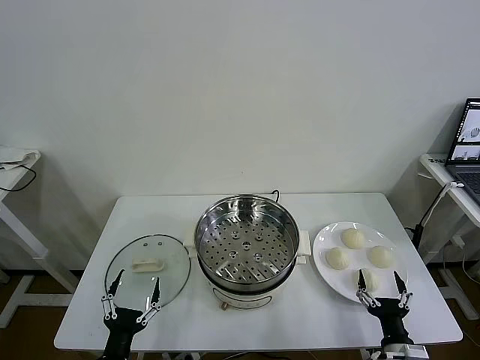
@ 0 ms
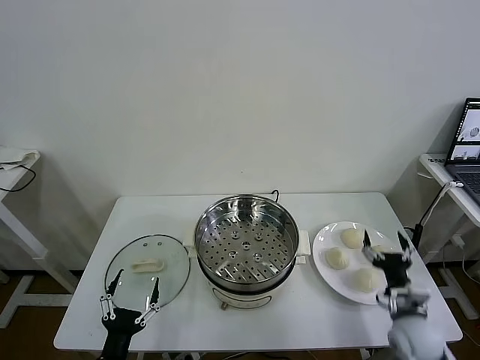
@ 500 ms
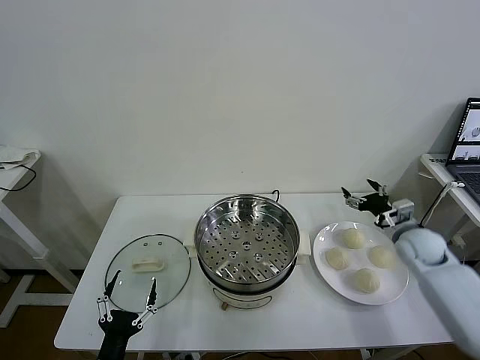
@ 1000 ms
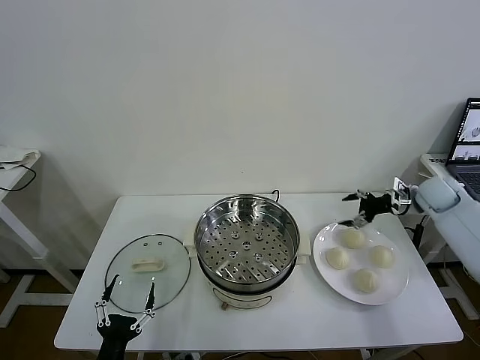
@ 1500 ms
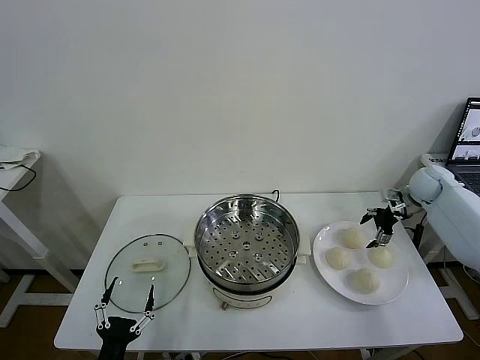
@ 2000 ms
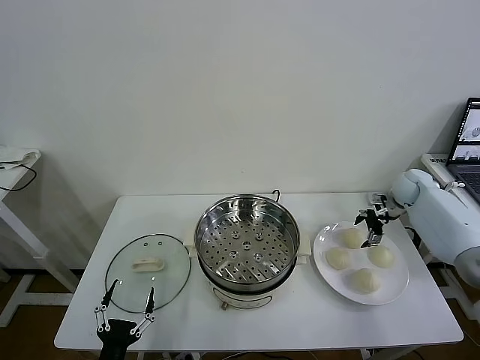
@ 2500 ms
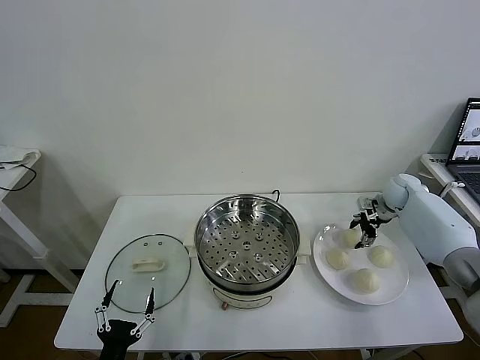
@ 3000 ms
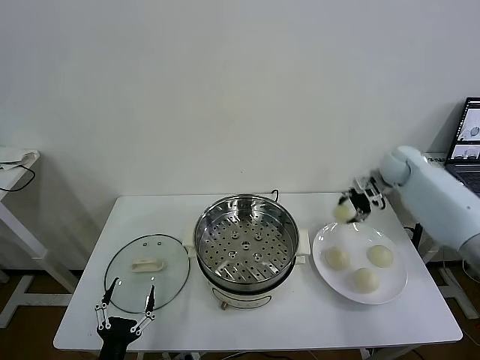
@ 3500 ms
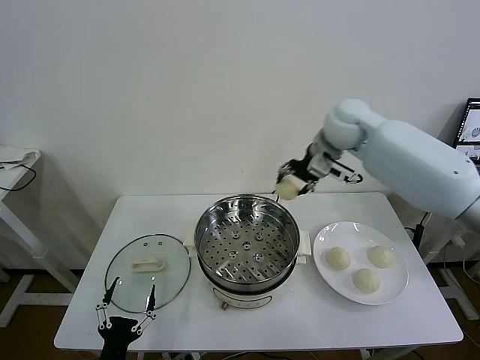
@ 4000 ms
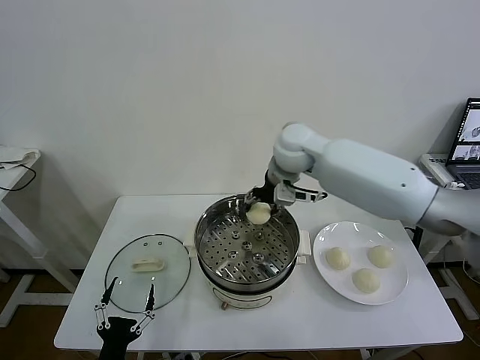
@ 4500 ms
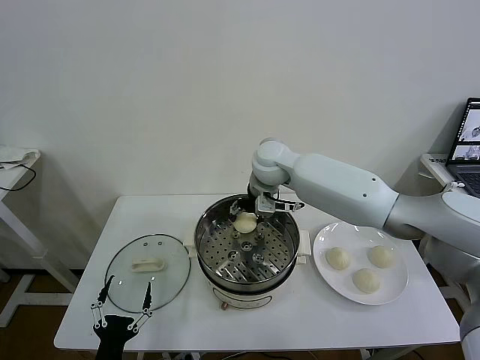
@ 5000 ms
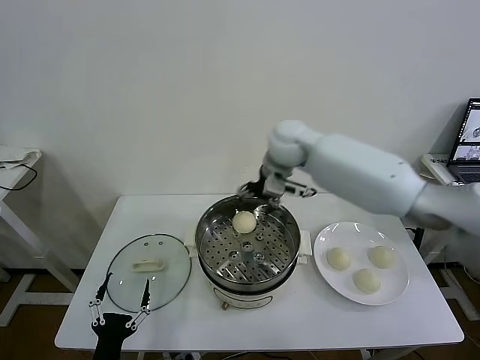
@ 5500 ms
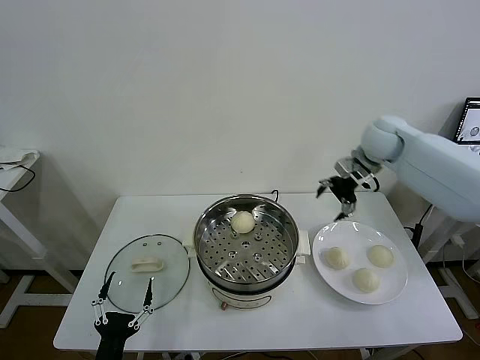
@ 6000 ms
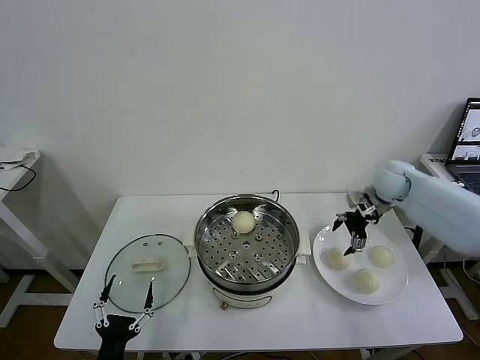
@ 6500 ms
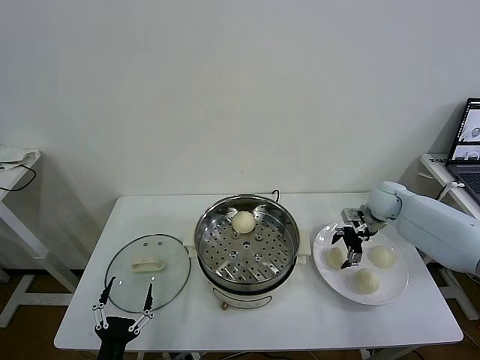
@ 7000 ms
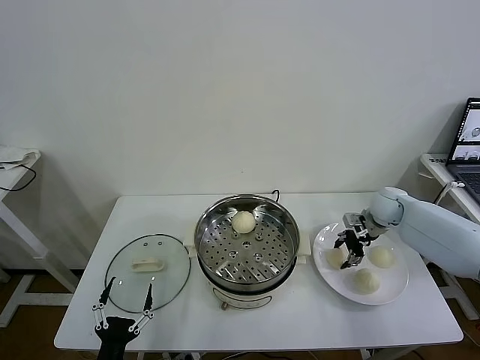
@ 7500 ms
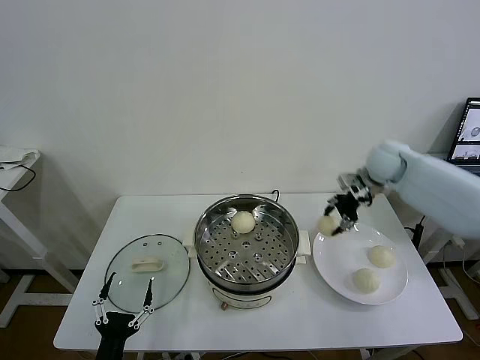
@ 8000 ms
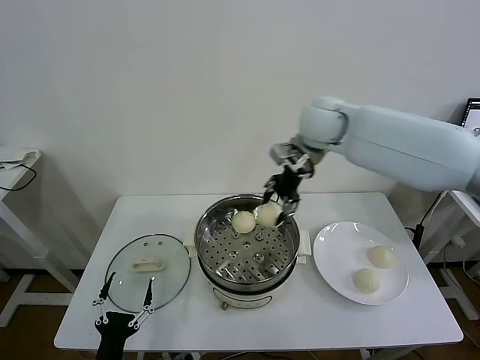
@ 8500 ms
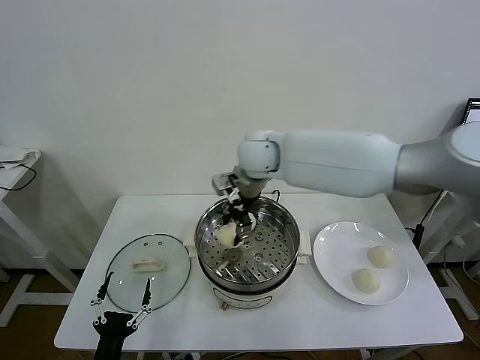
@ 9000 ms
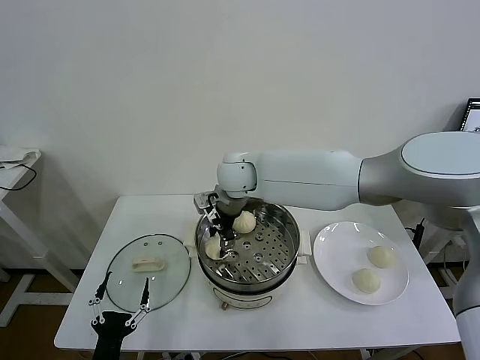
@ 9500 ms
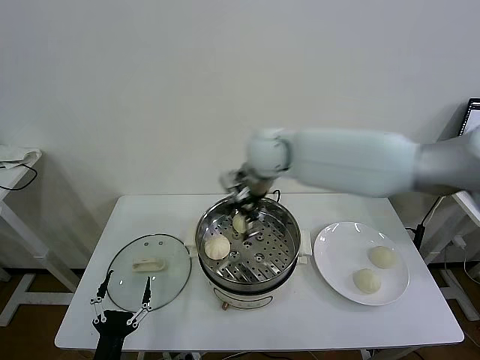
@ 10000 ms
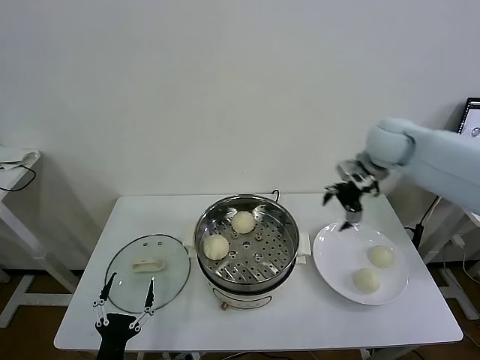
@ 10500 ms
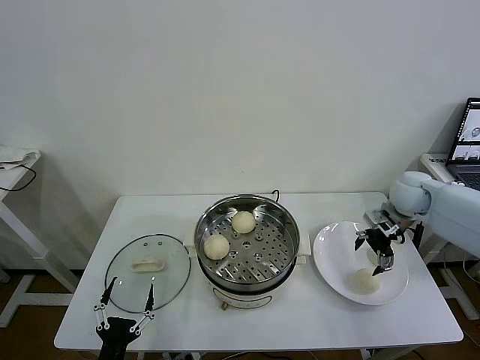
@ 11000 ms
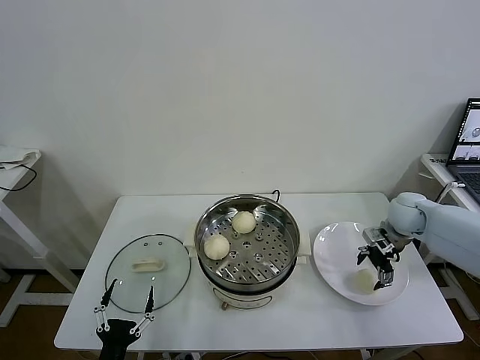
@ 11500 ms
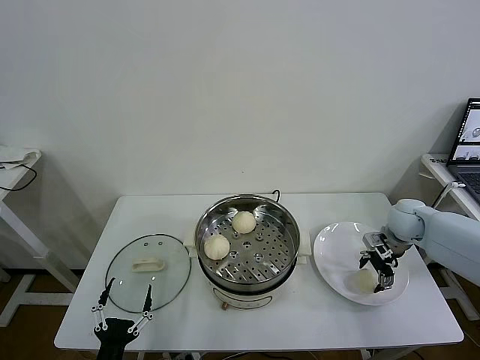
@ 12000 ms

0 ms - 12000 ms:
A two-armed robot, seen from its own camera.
Task of the whole recording: take steamed baozi put them in steamer then cover it.
Step, 0 ms - 3000 ms: Grasp the baozi in the plate with right gripper.
Step, 3500 ms - 5000 ms: Place the baozi on the steamer with right gripper.
Step, 5500 ms - 7000 ms: Grasp the baozi in the plate with right gripper.
Step, 8000 ms - 9500 ms: Place the baozi on the steamer with right gripper.
2000 ms - 4000 ms: The right gripper travels to the left and upward by some 35 cm, and closes up.
4000 ms - 6000 ms: The right gripper goes roughly 15 cm to the right, and opens.
6000 ms - 8000 ms: The right gripper travels downward and back again, approximately 15 cm each way, and closes up.
8000 ms - 10000 ms: The right gripper moves to the left, about 25 cm, and opens up.
10000 ms - 12000 ms: The right gripper moves to the right and downward, about 40 cm.

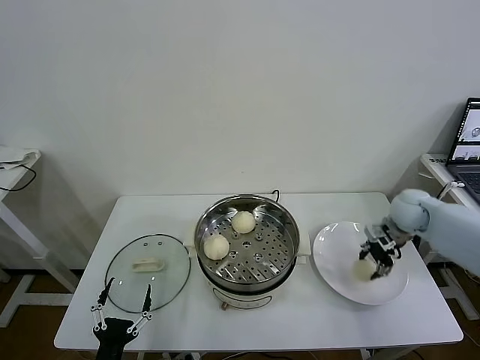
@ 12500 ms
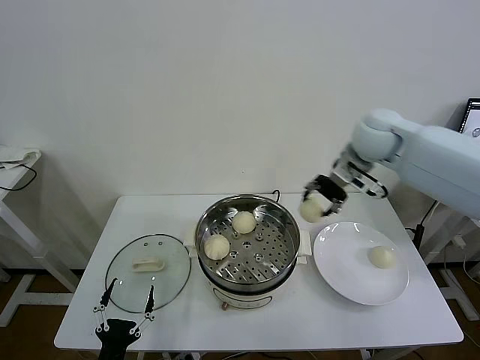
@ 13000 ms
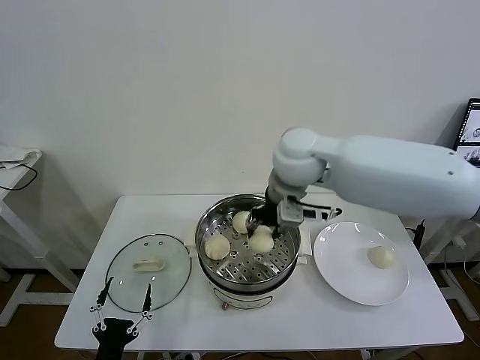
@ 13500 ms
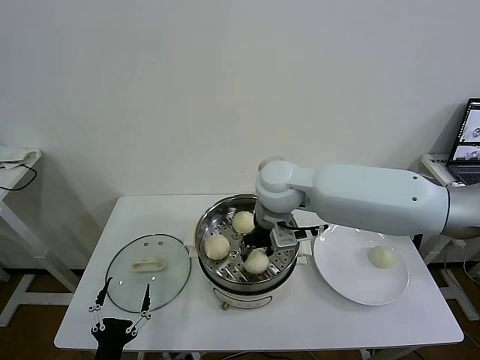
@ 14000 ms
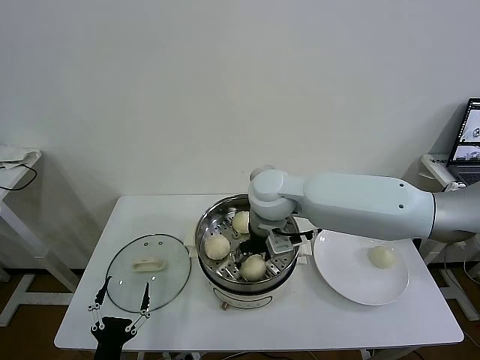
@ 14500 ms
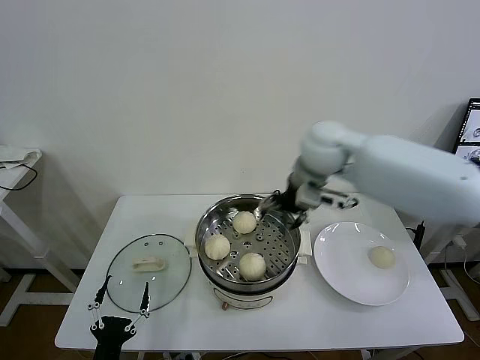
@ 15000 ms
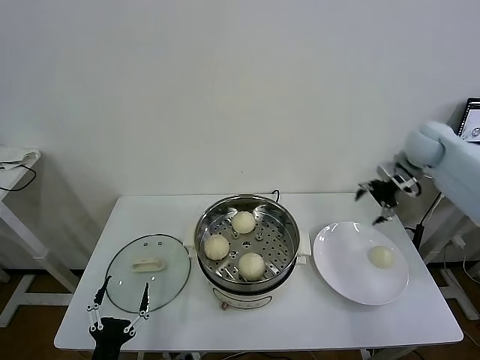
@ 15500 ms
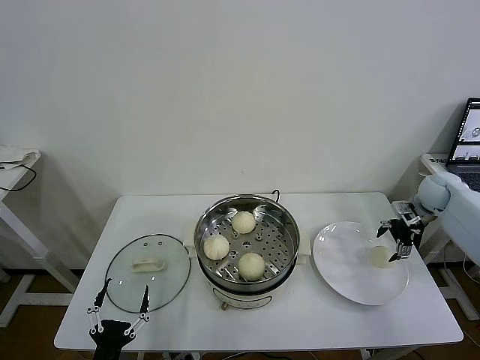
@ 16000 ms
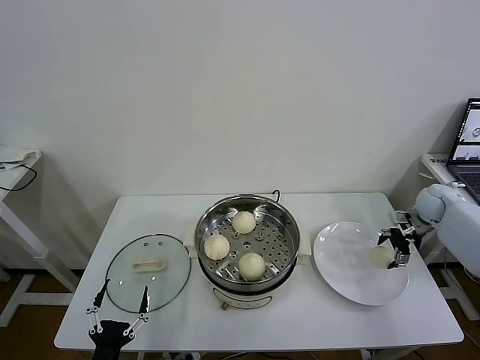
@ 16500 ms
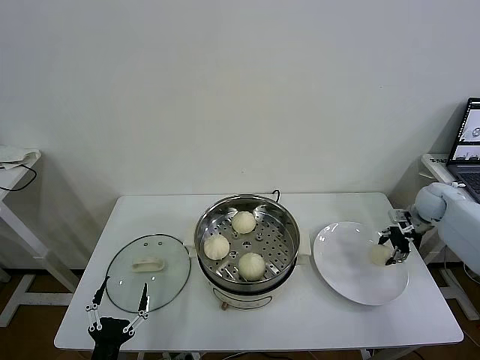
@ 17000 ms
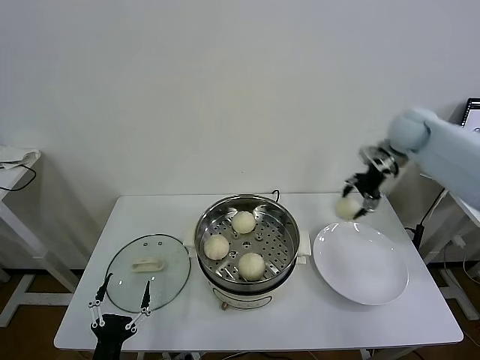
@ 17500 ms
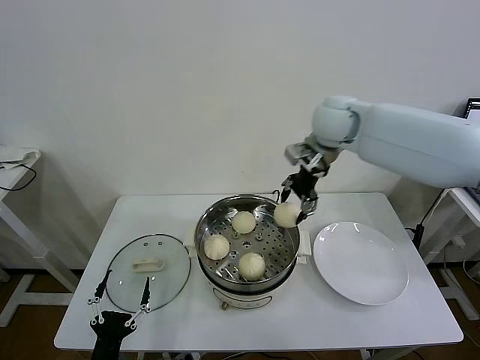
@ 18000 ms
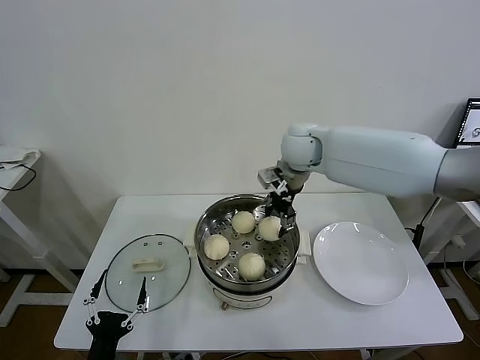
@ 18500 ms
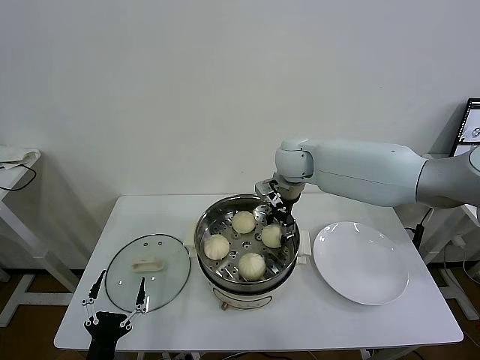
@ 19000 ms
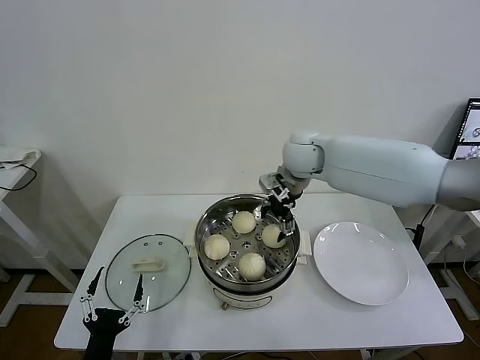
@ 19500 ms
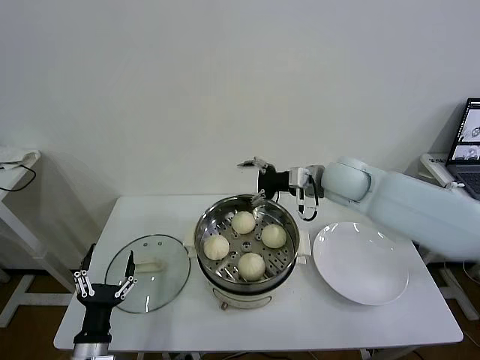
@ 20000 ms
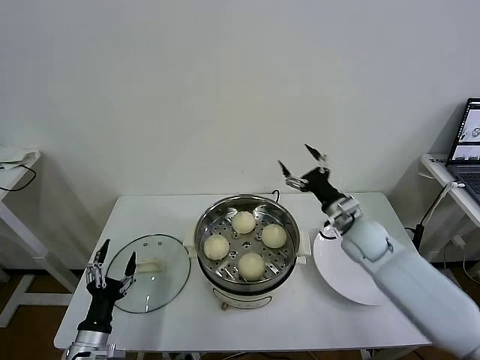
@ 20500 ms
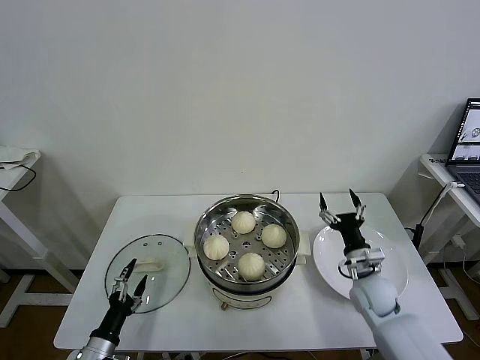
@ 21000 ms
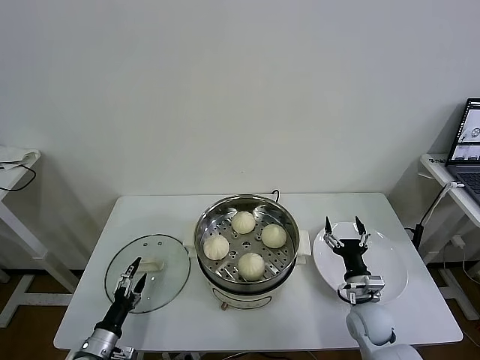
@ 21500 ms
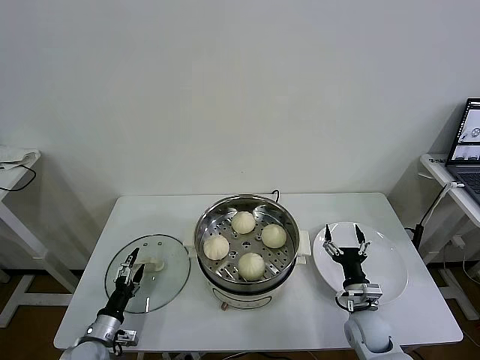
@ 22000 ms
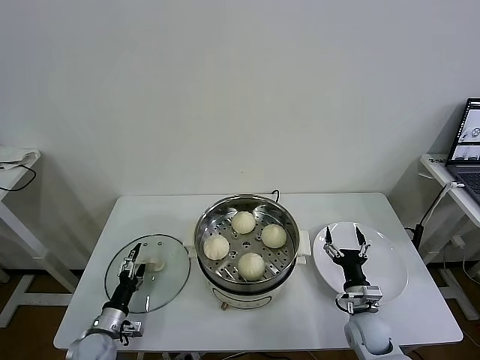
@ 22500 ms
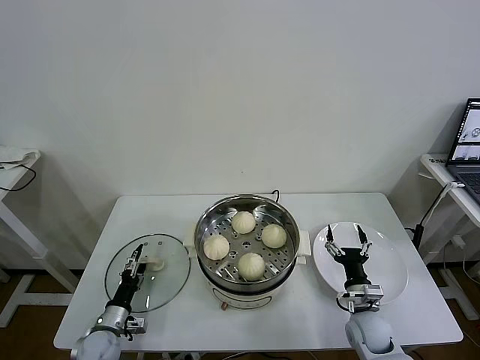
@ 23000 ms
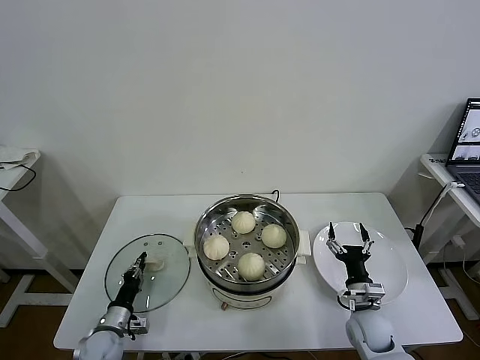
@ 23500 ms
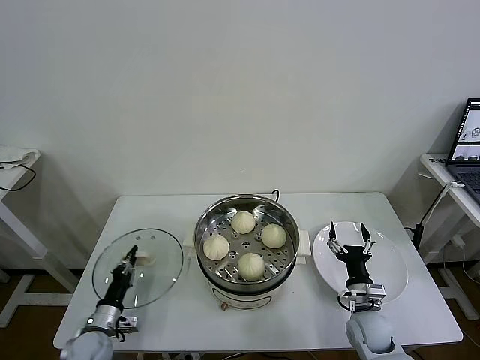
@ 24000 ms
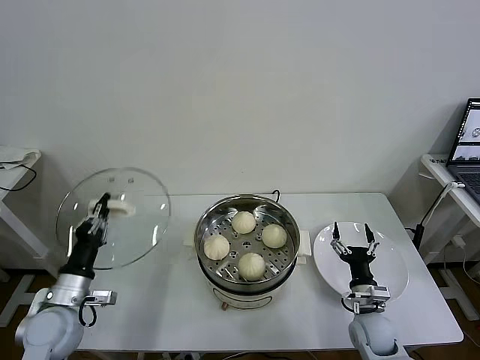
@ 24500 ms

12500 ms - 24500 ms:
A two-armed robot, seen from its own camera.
Task of the whole recording: take steamed baozi put them in steamer then cover it.
Step, 12500 ms - 14500 ms: Place the baozi on the steamer with right gripper.
Step, 15000 ms - 16500 ms: Grasp the baozi in the plate with right gripper.
Step, 17000 ms - 19000 ms: Place the baozi on the steamer with right gripper.
Step, 19500 ms - 23500 ms: Grasp the pot lid with left gripper.
12500 ms - 14500 ms: The right gripper travels to the left by some 35 cm, and opens.
14500 ms - 16500 ms: The right gripper shifts roughly 50 cm to the right.
16500 ms - 18500 ms: The right gripper travels to the left and upward by some 40 cm, and closes up.
18500 ms - 20500 ms: The left gripper travels forward by approximately 10 cm. The right gripper moves downward, to the right and backward, roughly 30 cm, and opens.
20500 ms - 22500 ms: The right gripper goes about 20 cm downward and backward. The left gripper travels downward and forward by about 10 cm.
22500 ms - 24500 ms: The left gripper heads upward, covering some 20 cm, and closes.

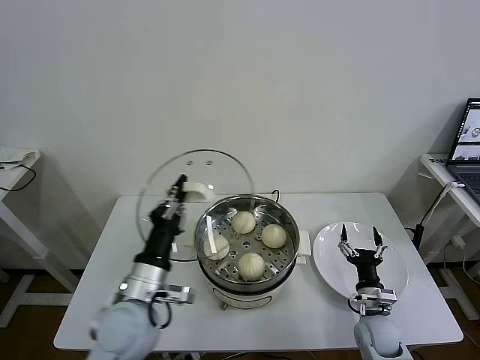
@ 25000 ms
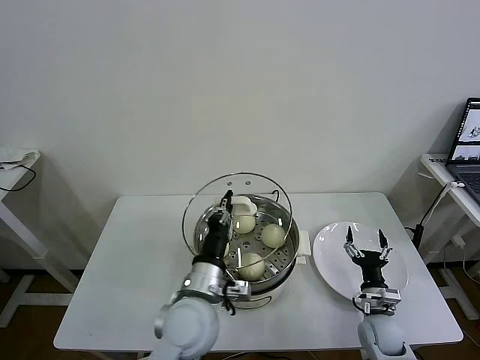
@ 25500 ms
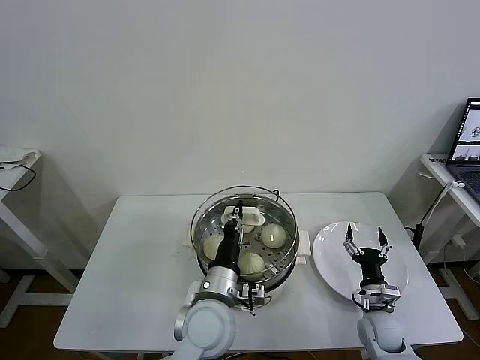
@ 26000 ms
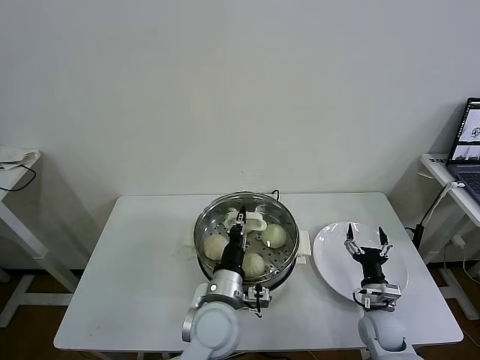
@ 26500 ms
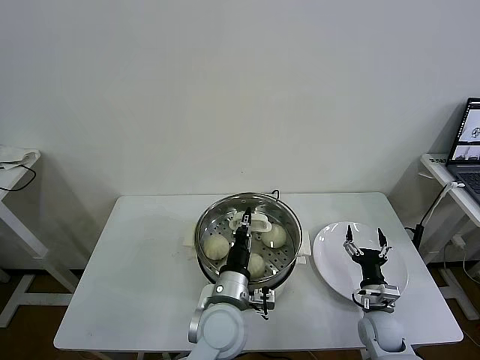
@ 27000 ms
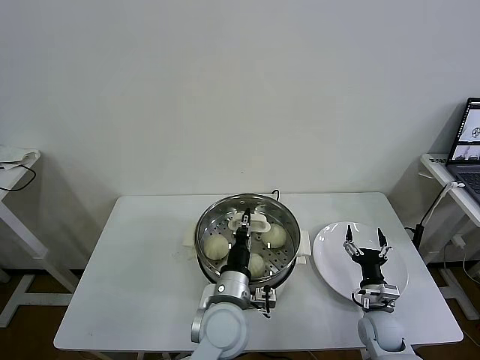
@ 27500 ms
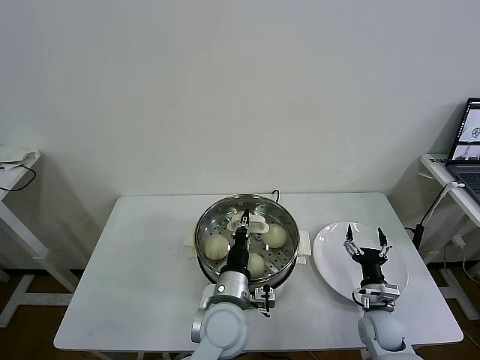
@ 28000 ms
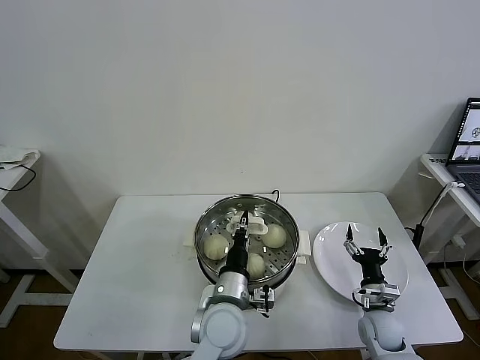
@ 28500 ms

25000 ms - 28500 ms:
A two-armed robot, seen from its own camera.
Task of the whole recording: take steamed baozi put them in steamer then cover it.
25000 ms - 27000 ms: The left gripper shifts roughly 15 cm to the right.
27000 ms - 28500 ms: Both grippers stay put.
